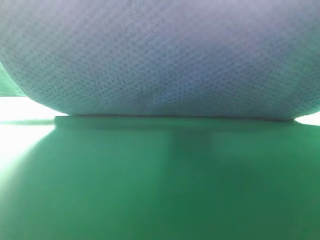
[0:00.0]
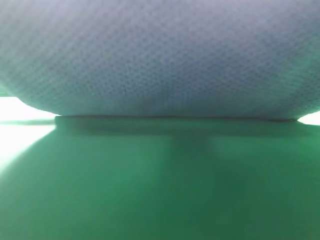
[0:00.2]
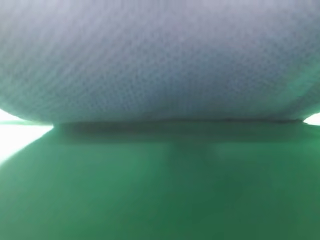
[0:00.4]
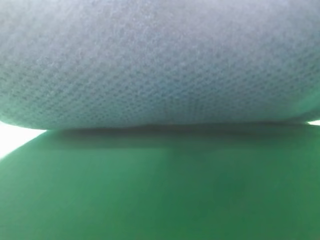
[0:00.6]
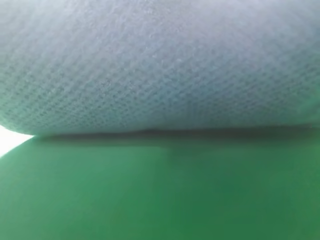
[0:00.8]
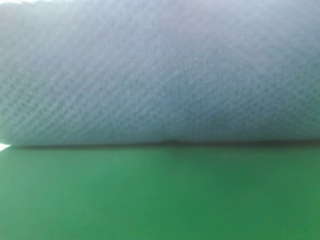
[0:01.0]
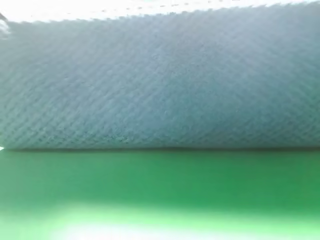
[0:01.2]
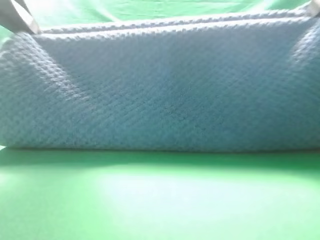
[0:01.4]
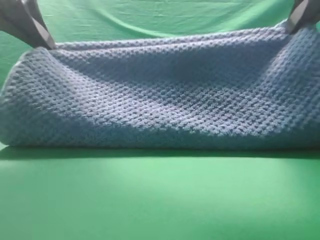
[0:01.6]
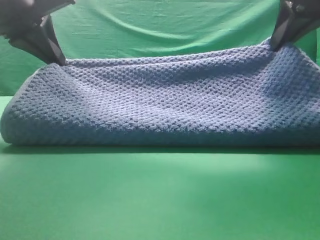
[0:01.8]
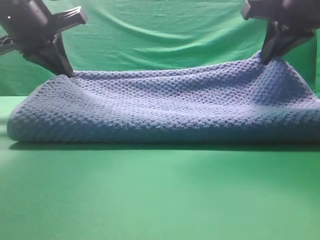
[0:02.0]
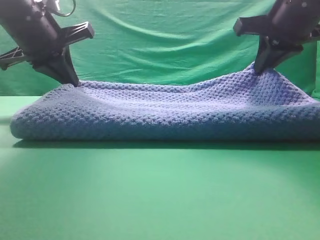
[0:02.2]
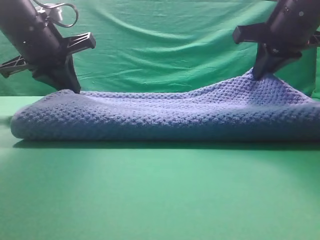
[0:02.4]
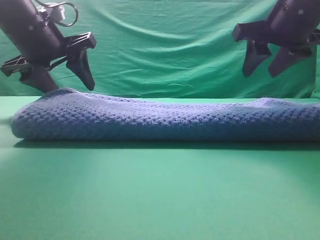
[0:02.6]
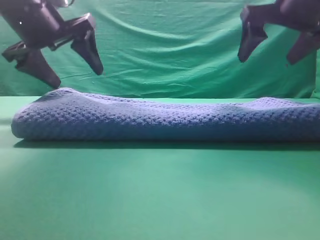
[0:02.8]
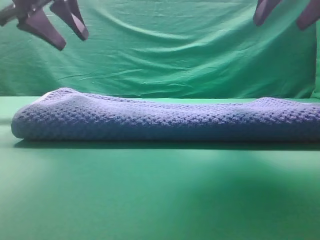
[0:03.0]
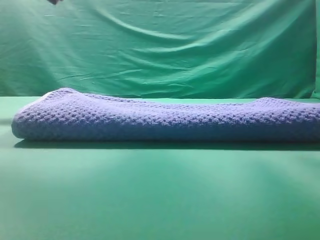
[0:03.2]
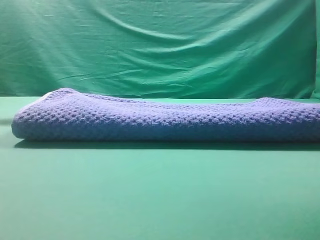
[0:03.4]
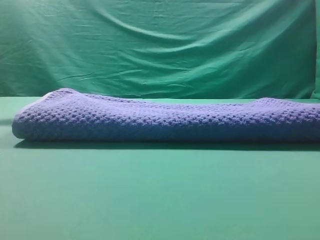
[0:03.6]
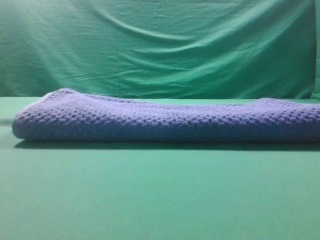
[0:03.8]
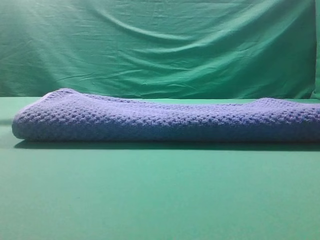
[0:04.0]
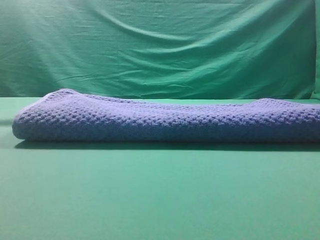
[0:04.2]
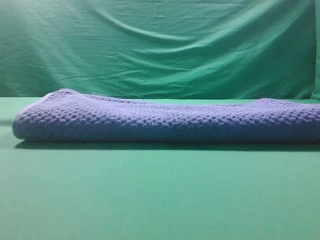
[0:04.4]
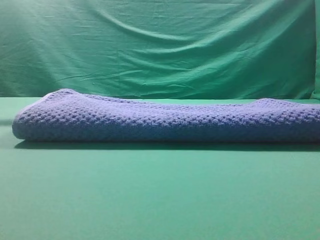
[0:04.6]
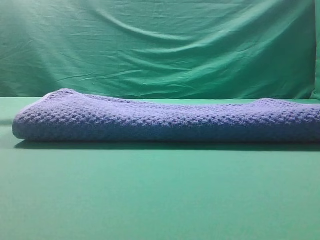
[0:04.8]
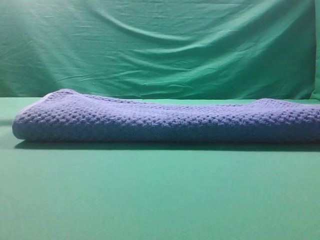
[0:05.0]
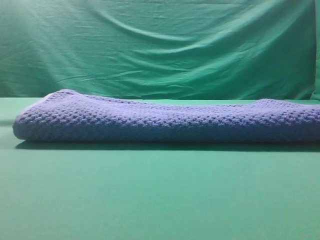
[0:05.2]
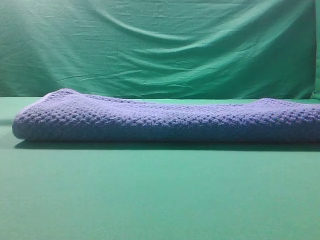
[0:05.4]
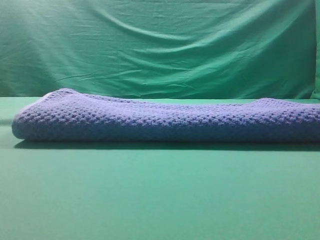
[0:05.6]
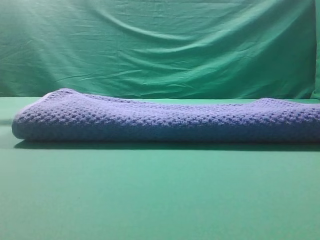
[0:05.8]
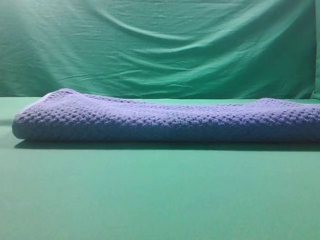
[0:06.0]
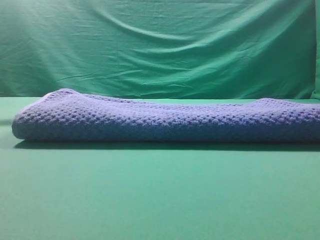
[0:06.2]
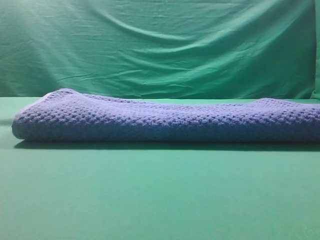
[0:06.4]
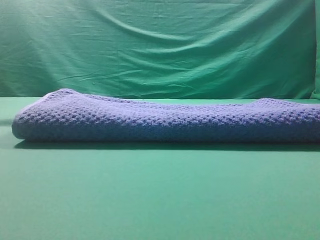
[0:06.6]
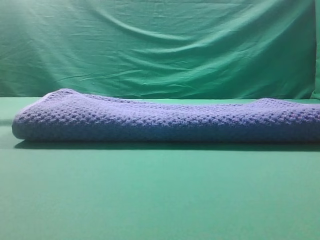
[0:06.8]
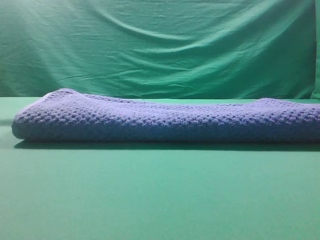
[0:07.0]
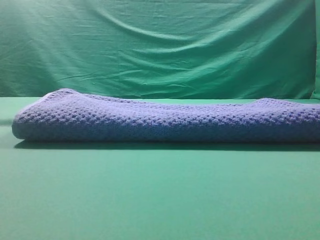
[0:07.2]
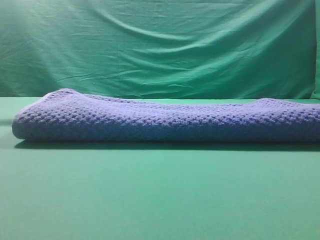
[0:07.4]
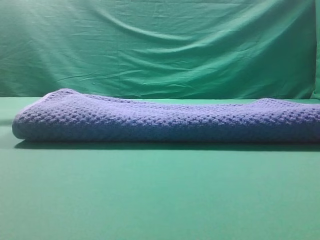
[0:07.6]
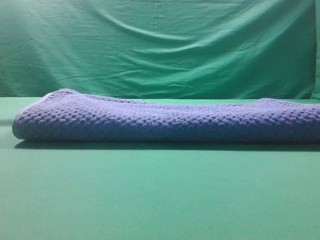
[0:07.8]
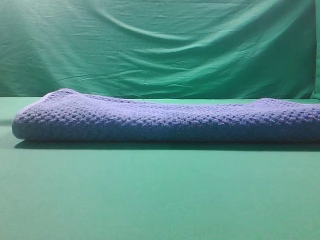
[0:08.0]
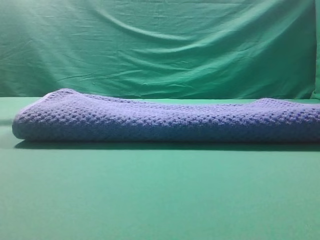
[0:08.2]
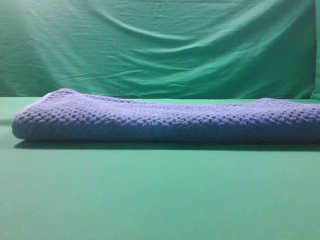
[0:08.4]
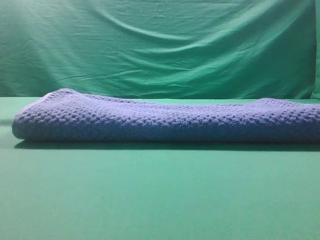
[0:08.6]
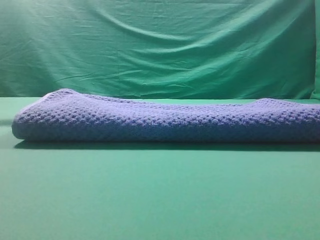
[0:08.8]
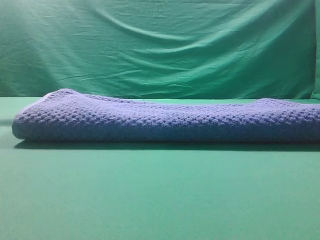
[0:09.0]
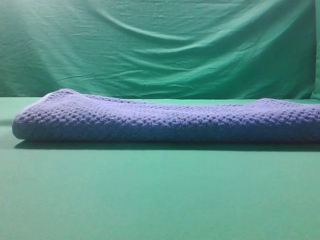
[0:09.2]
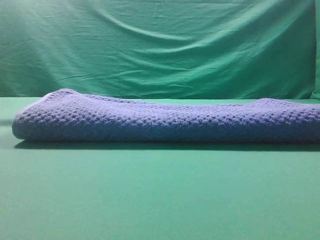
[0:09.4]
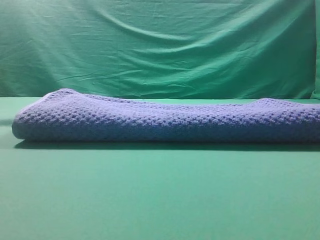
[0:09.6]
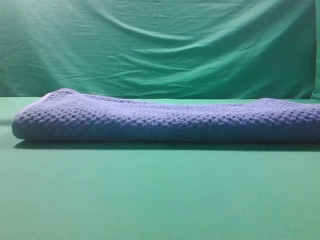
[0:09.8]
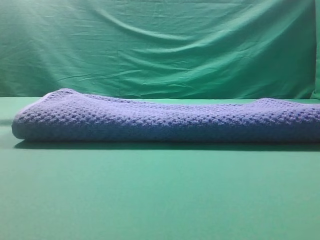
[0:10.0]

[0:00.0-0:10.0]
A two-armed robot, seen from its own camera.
Task of the whole recording: fold the towel on the table twice.
Step, 0:00.0 to 0:02.6: Fold the towel twice on the table.
